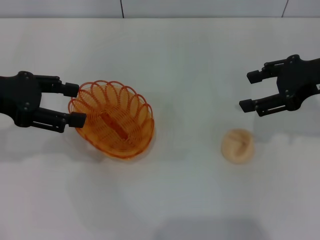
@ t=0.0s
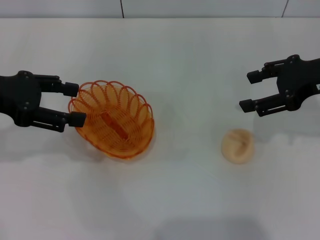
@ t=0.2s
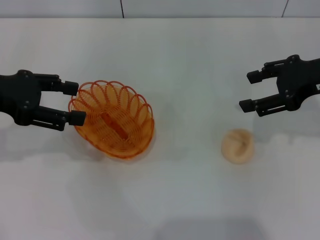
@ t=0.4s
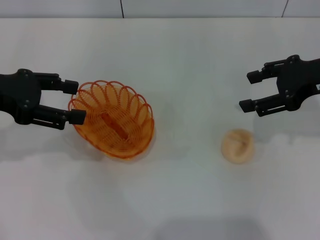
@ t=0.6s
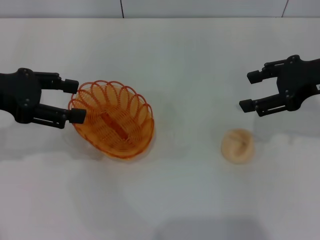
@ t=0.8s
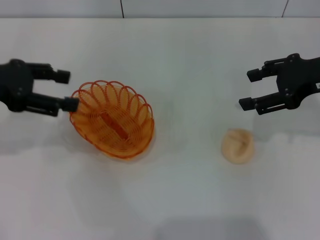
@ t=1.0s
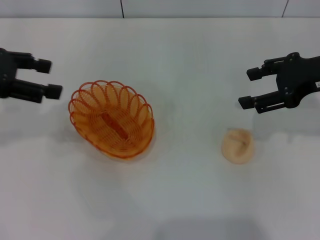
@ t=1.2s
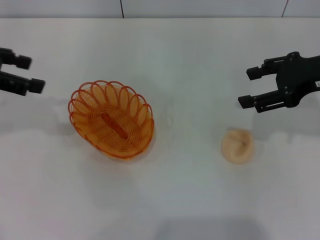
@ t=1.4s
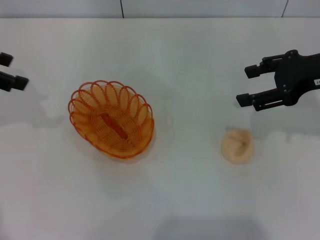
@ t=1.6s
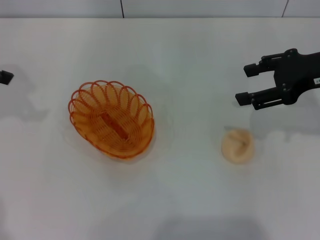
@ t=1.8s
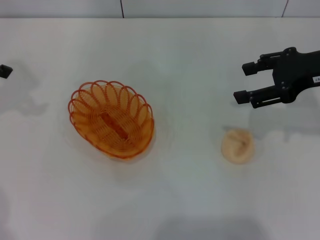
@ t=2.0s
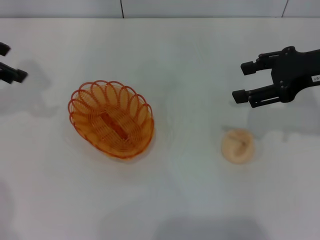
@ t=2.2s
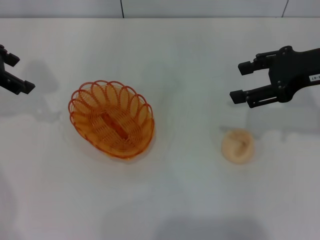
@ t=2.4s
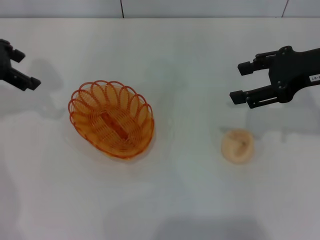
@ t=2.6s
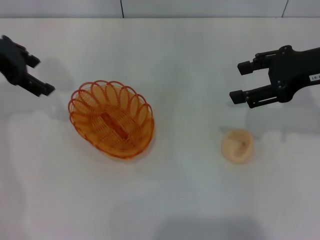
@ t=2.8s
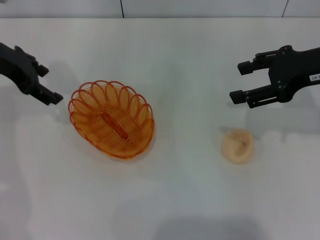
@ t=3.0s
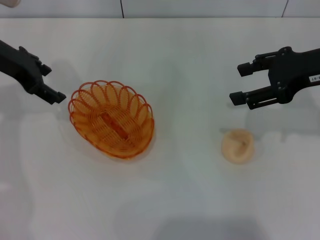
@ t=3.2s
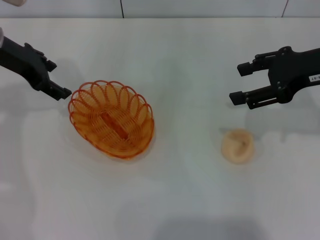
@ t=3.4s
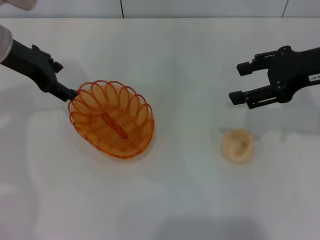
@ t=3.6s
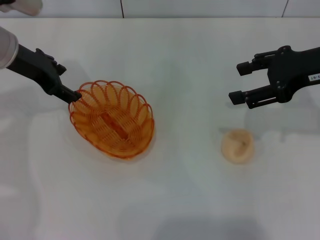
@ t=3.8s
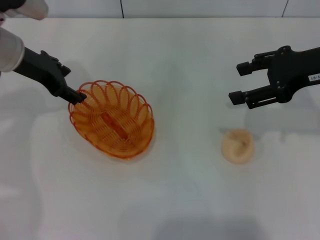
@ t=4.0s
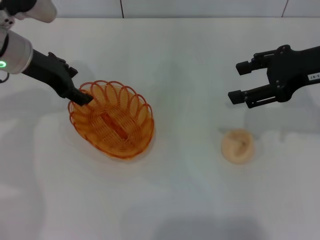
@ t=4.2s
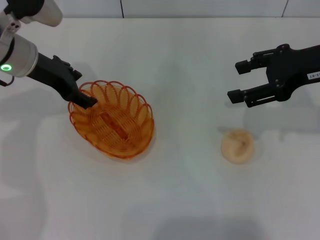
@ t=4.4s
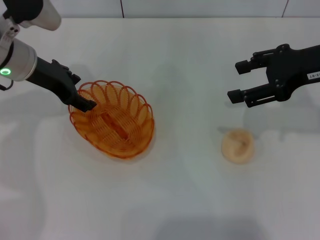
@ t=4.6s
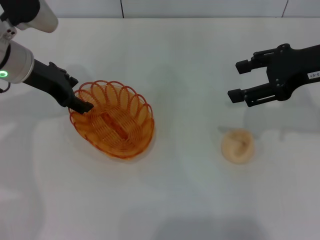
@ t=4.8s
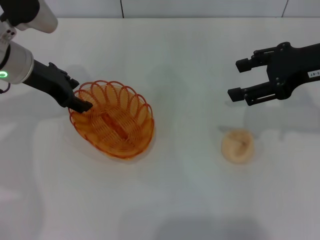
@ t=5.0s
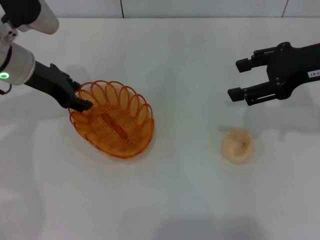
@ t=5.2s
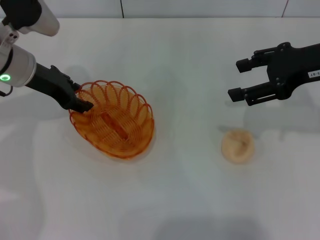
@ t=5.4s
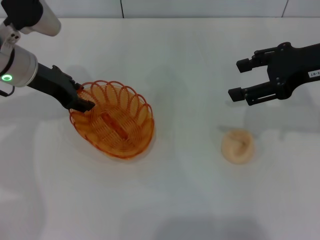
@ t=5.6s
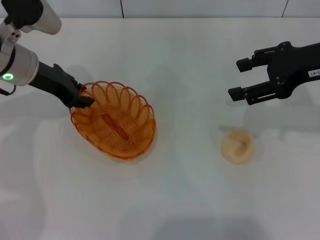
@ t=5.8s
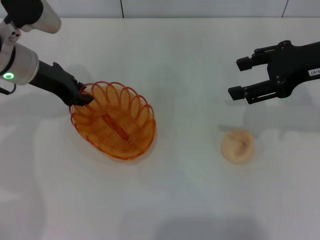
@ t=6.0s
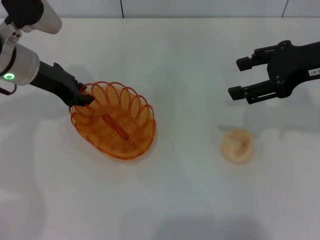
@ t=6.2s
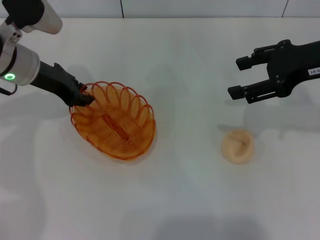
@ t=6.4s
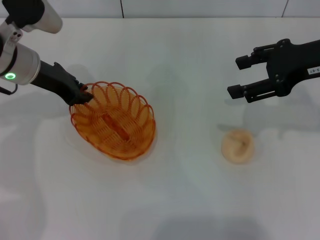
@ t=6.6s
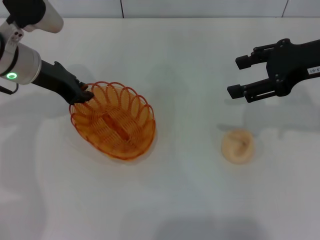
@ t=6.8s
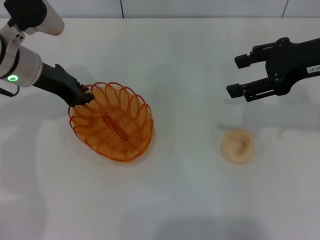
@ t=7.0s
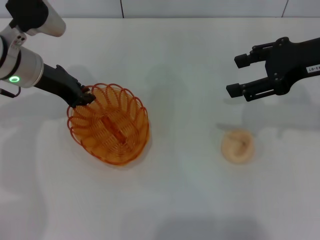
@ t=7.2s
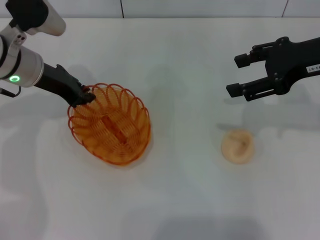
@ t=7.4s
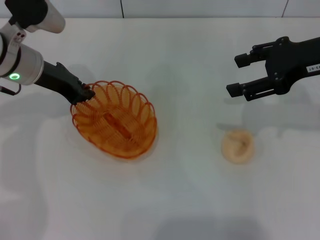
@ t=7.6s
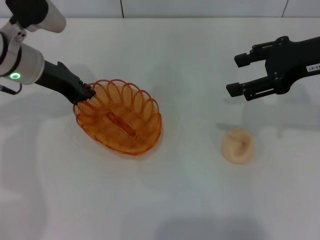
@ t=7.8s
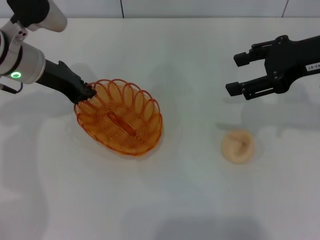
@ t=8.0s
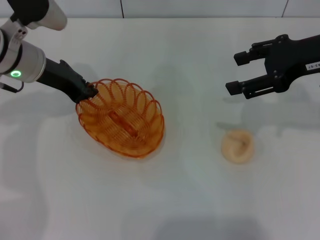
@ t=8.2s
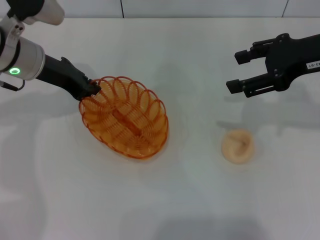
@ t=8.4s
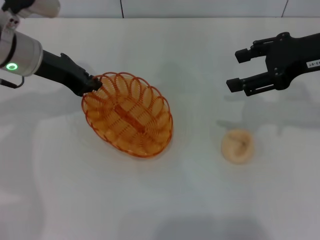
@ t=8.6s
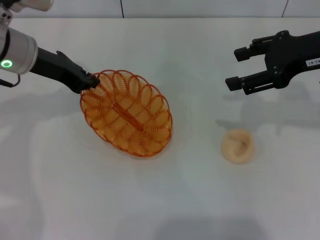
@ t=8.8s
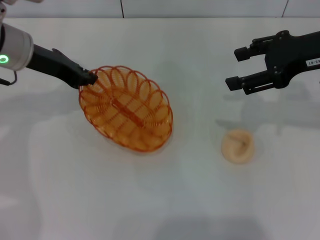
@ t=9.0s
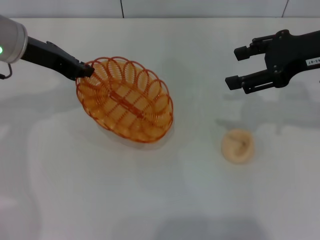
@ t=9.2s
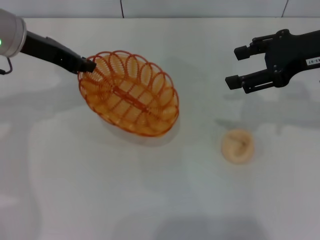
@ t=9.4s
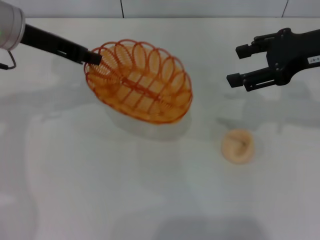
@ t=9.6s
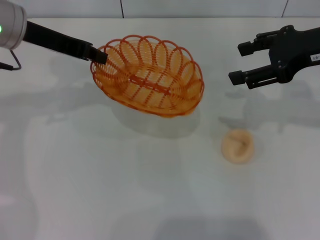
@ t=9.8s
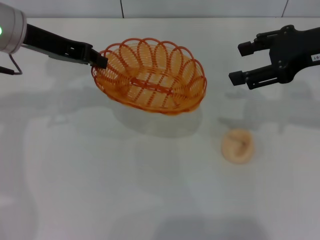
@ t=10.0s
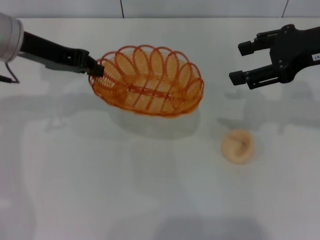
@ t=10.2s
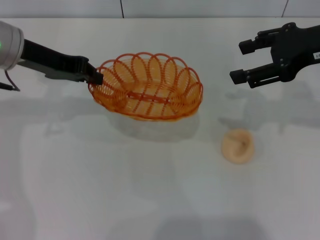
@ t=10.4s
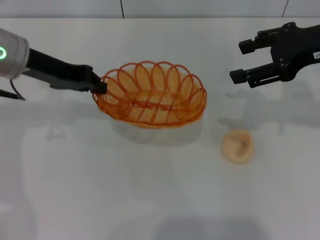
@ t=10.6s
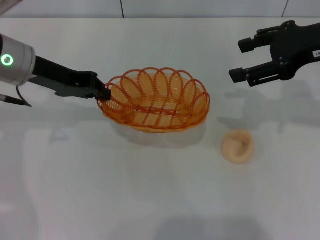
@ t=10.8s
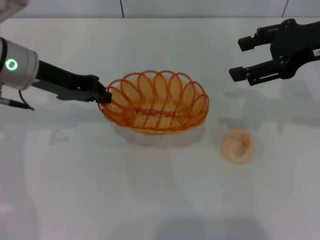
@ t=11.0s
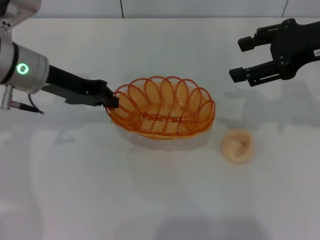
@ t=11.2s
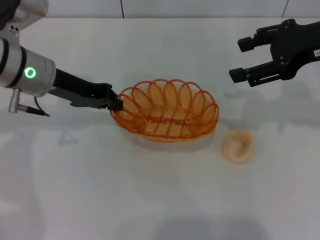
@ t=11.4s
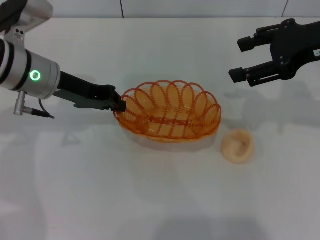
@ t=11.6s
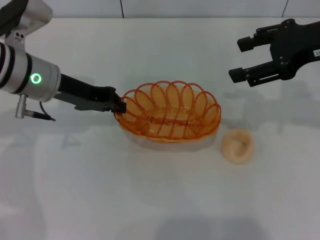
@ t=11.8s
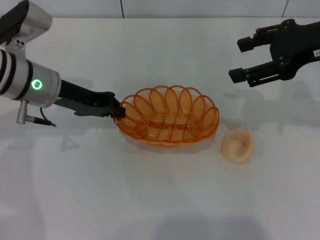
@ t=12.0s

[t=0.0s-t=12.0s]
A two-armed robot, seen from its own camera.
Step, t=0.0s to t=9.0s: Pick up the basket with the left gripper.
t=0.0s to t=1.6s: The left gripper shifts by some 10 cm.
t=1.6s to t=3.0s: The left gripper heads to the right, covering some 5 cm.
t=3.0s to t=4.4s: The left gripper changes place by some 5 cm.
t=4.4s to t=6.0s: The left gripper closes its fingers.
t=6.0s to t=7.6s: Both grippers stay put.
t=7.6s to t=9.0s: The grippers move only a little.
t=10.4s to t=12.0s: The left gripper shifts roughly 5 cm downward.

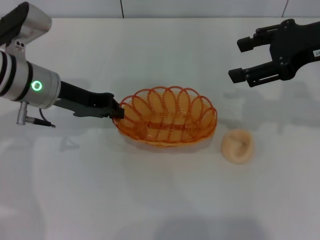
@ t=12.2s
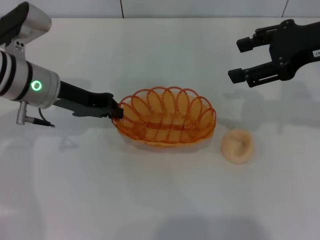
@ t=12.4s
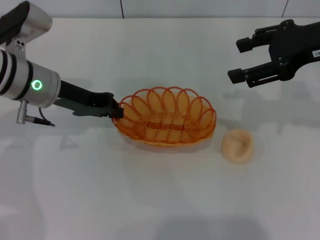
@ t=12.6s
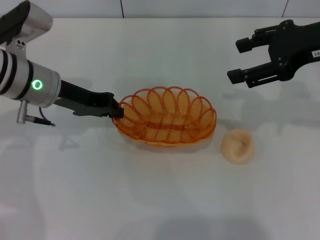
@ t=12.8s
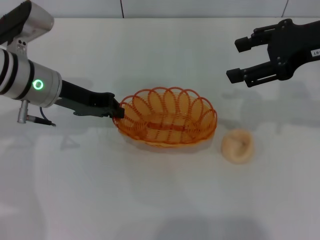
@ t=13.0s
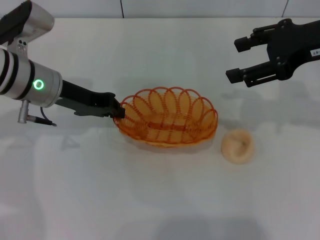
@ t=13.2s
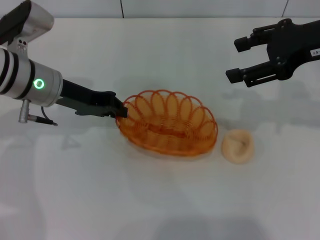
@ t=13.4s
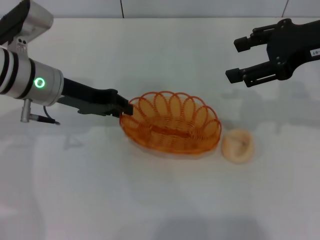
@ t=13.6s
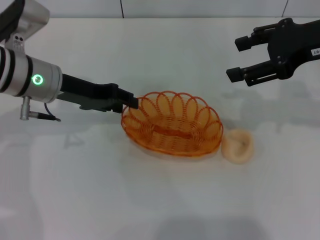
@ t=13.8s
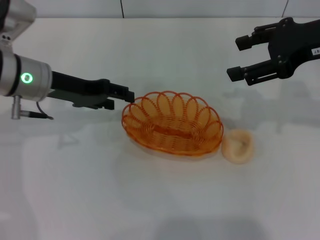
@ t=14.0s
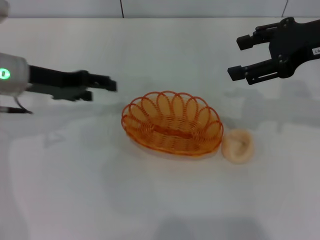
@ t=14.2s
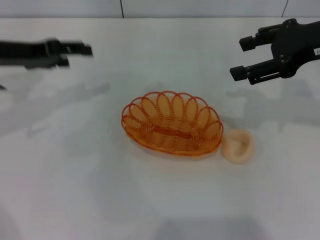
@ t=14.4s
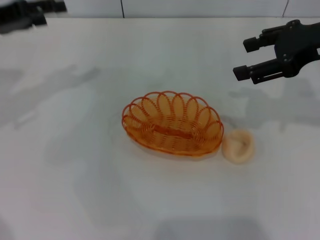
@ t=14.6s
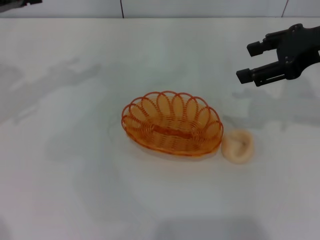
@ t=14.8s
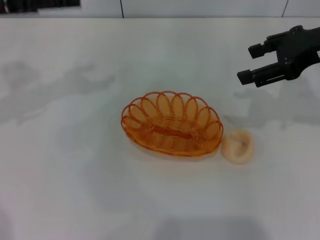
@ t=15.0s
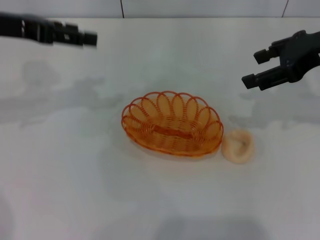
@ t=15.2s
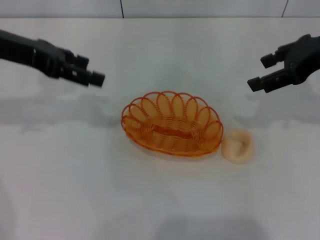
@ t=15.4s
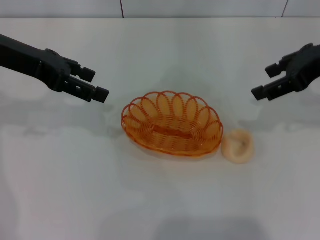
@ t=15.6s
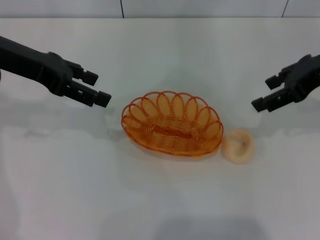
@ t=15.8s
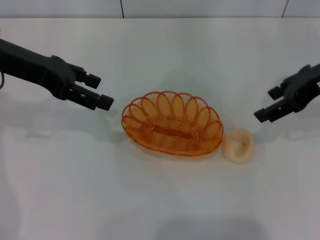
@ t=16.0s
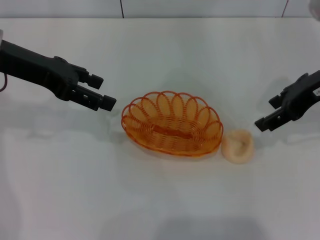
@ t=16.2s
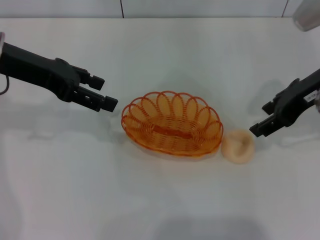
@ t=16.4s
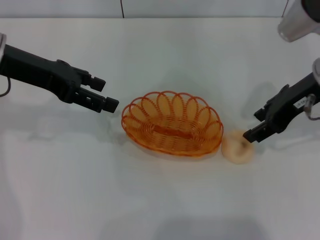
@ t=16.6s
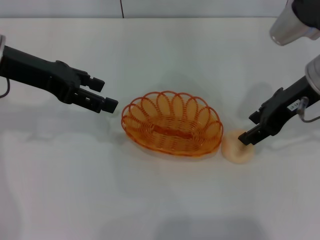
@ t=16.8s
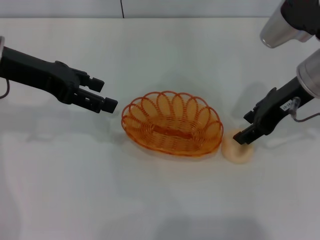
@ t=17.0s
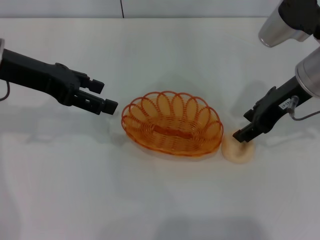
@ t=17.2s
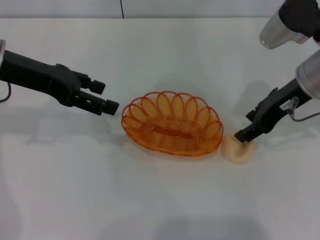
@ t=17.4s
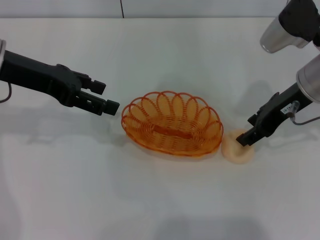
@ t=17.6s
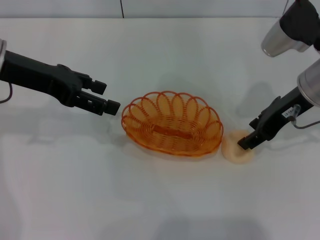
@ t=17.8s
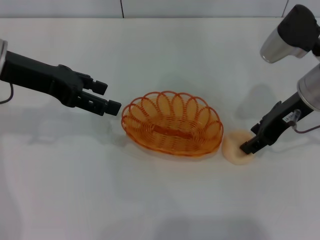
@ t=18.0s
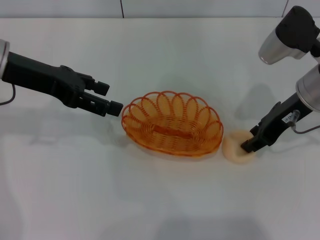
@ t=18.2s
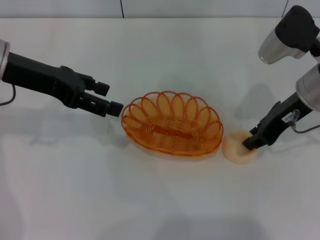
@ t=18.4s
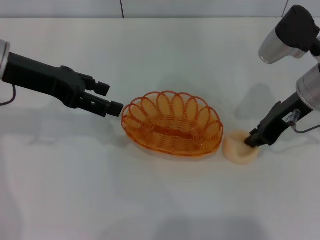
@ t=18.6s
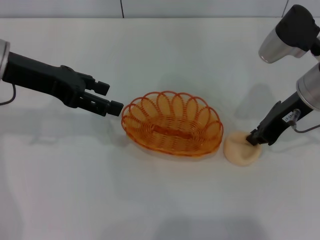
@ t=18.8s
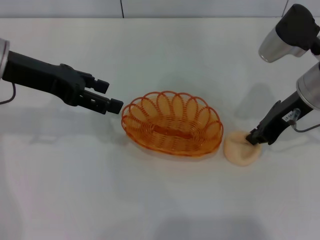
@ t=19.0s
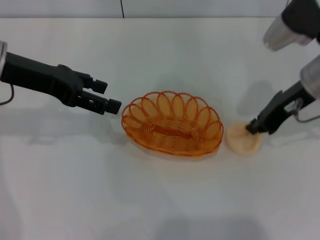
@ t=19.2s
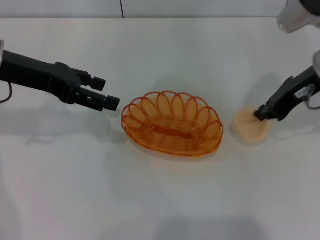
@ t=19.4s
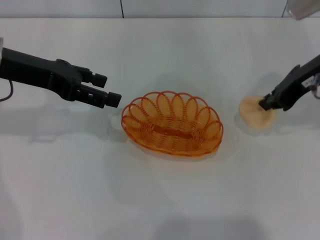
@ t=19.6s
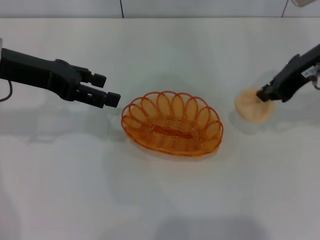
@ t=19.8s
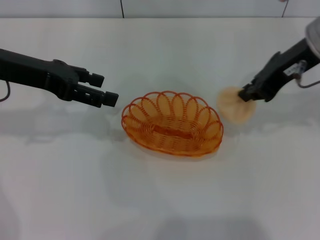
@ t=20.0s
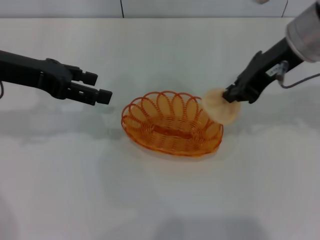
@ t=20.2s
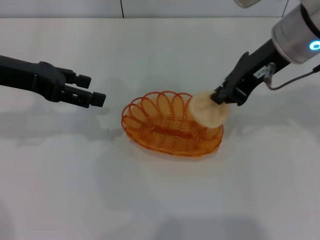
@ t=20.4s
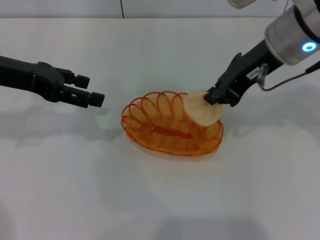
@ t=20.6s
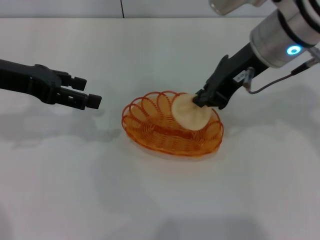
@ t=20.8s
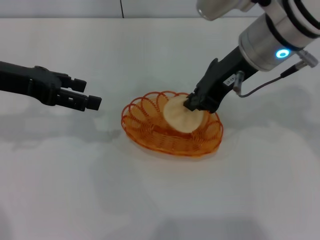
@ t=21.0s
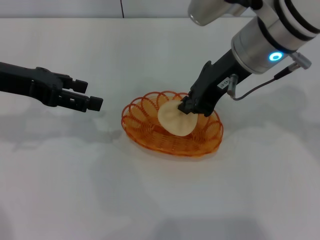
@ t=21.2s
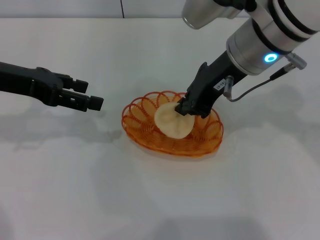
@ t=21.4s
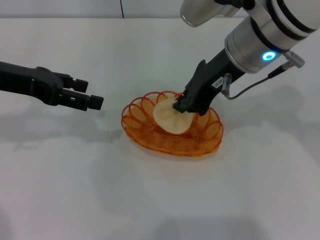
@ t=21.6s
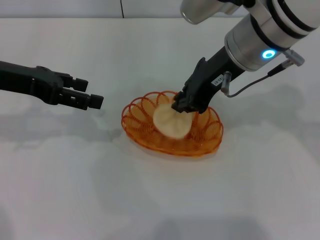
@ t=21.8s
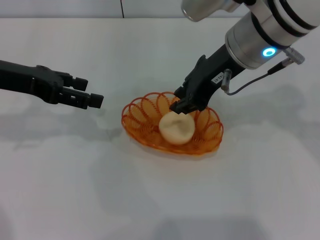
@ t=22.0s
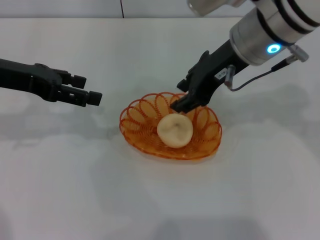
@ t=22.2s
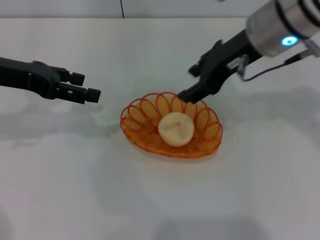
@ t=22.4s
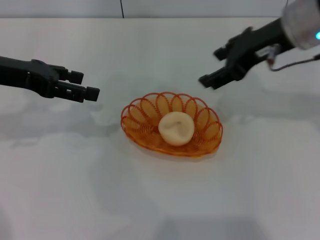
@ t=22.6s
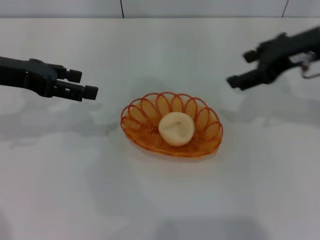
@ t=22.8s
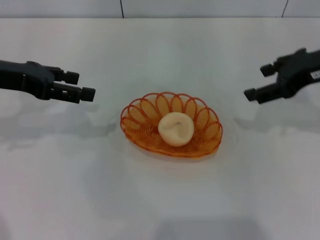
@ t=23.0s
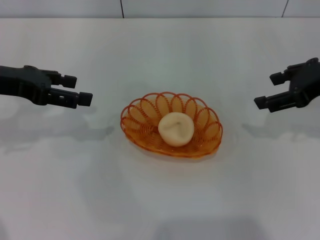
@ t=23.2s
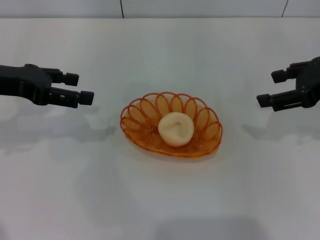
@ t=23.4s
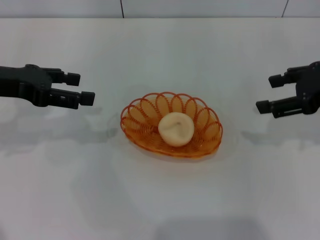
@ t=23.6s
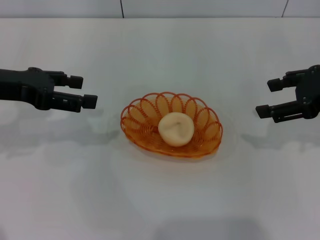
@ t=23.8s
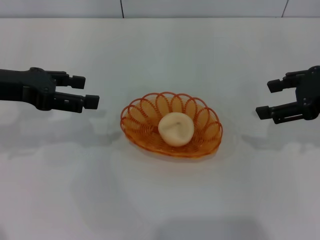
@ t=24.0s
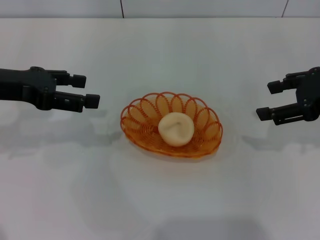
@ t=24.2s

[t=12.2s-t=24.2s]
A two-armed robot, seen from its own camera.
Step, t=14.2s to t=19.8s: Pick up the egg yolk pastry with the right gripper.
Step, t=20.0s to t=22.4s: Place the egg yolk pastry into the basket with the right gripper.
t=12.2s to t=13.8s: Neither gripper changes place.
t=13.8s to t=15.2s: The left gripper moves upward and to the left, about 10 cm, and opens up.
t=15.2s to t=16.6s: The right gripper ends up approximately 5 cm from where it was.
t=16.6s to t=18.2s: There are only small adjustments of the grippers.
t=18.2s to t=19.8s: The right gripper goes about 5 cm upward, and closes.
t=19.8s to t=21.2s: The right gripper is displaced to the left by roughly 10 cm.
t=21.2s to t=22.6s: The right gripper travels to the right by approximately 5 cm, and opens.
t=22.6s to t=24.2s: The right gripper shifts roughly 15 cm to the right and backward.
